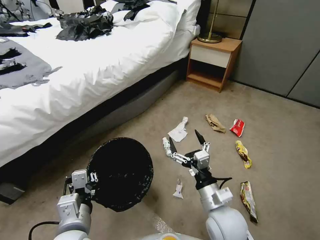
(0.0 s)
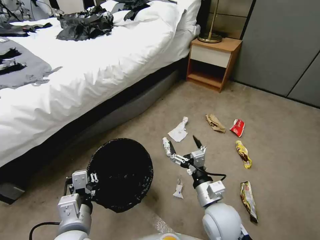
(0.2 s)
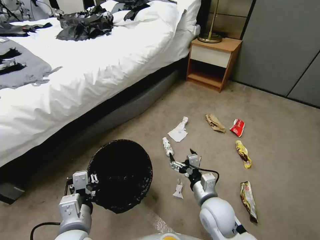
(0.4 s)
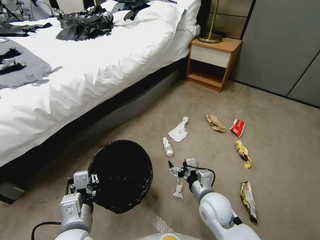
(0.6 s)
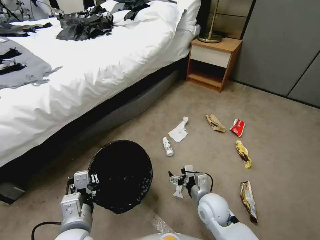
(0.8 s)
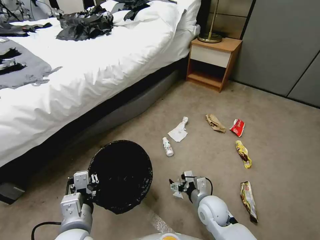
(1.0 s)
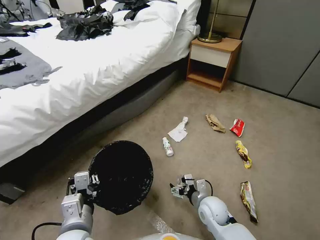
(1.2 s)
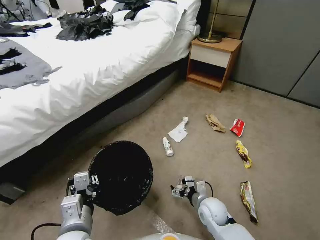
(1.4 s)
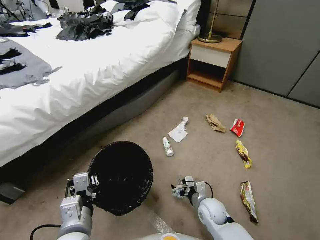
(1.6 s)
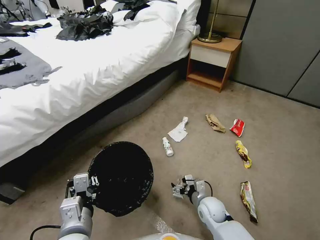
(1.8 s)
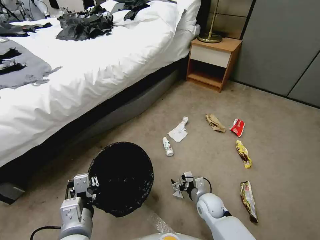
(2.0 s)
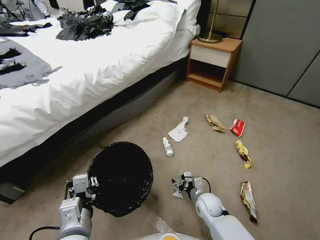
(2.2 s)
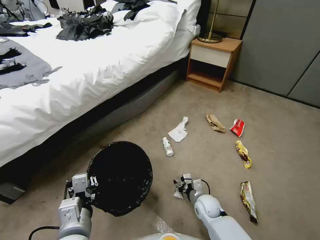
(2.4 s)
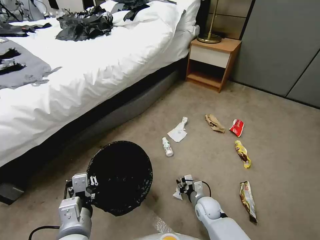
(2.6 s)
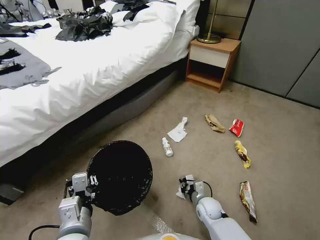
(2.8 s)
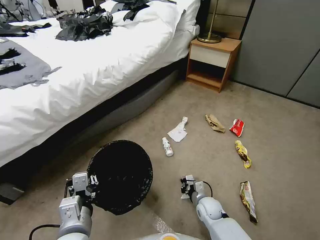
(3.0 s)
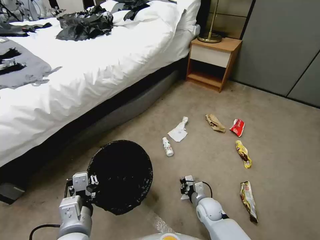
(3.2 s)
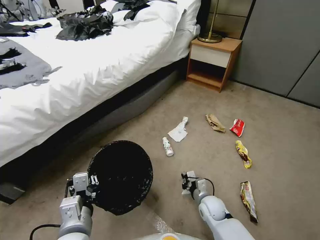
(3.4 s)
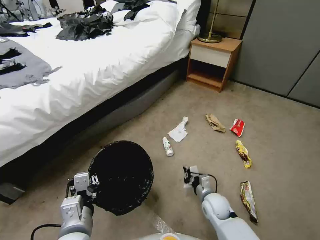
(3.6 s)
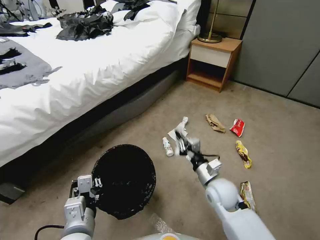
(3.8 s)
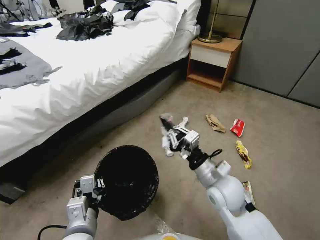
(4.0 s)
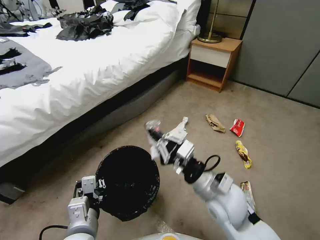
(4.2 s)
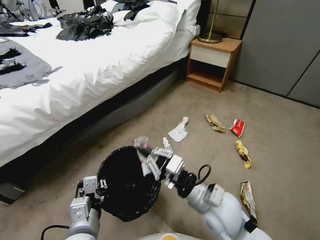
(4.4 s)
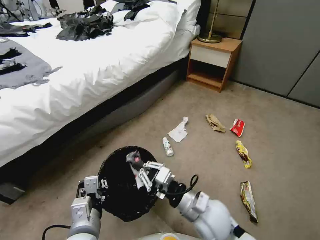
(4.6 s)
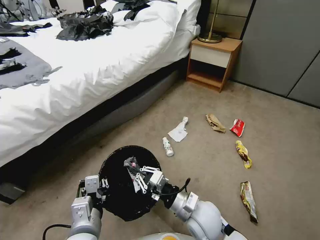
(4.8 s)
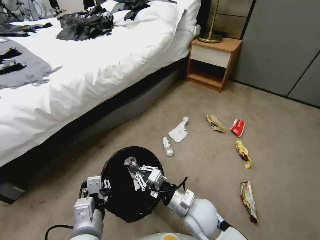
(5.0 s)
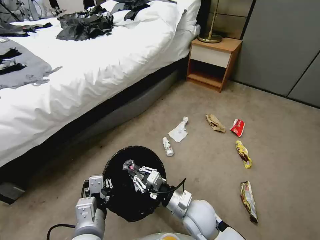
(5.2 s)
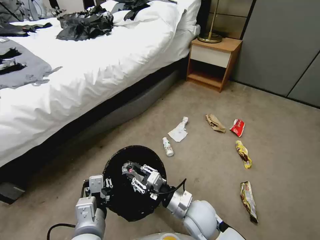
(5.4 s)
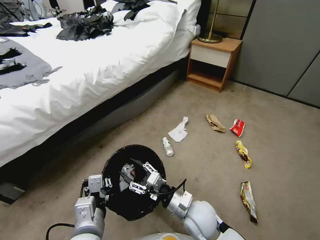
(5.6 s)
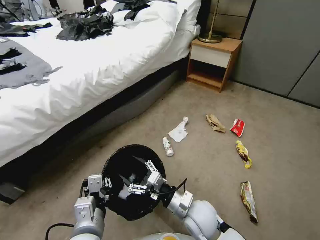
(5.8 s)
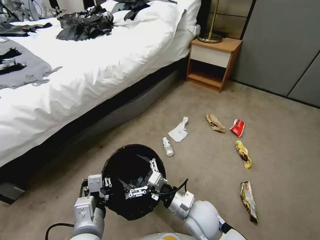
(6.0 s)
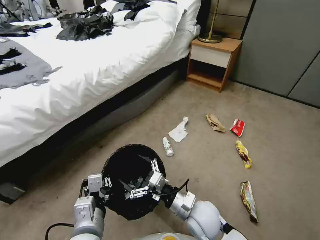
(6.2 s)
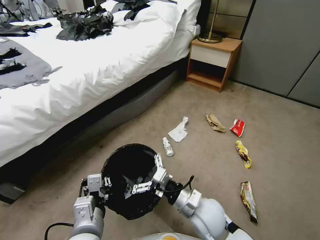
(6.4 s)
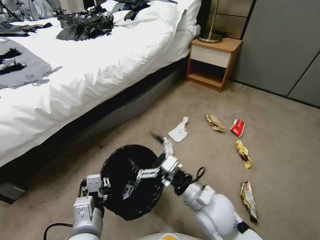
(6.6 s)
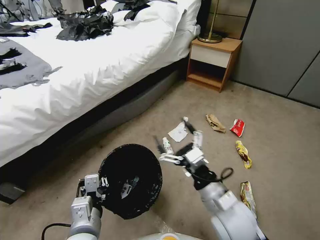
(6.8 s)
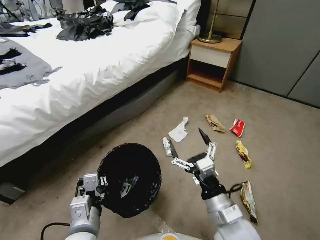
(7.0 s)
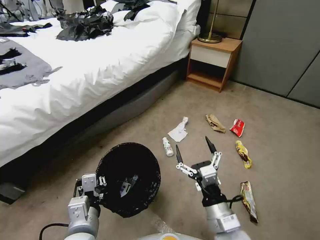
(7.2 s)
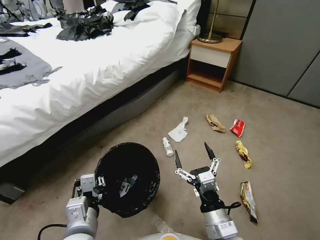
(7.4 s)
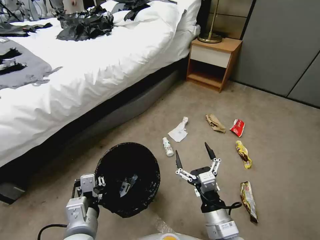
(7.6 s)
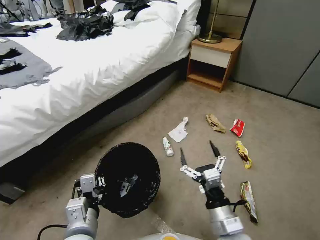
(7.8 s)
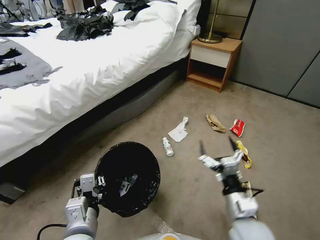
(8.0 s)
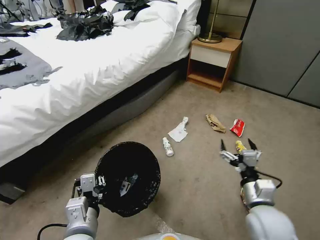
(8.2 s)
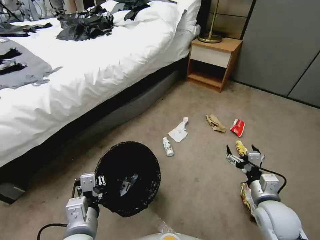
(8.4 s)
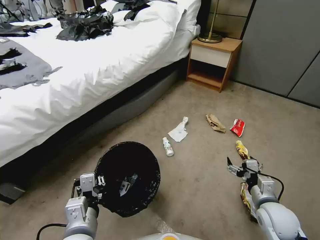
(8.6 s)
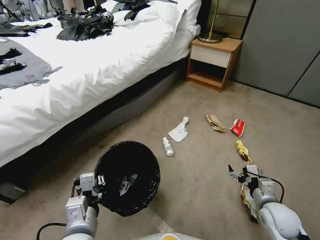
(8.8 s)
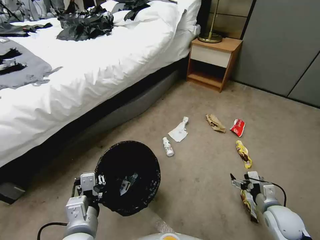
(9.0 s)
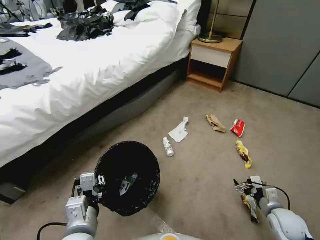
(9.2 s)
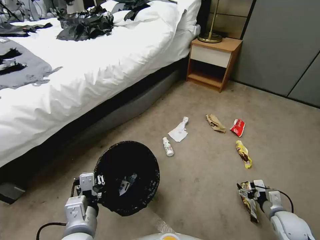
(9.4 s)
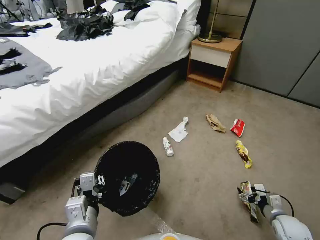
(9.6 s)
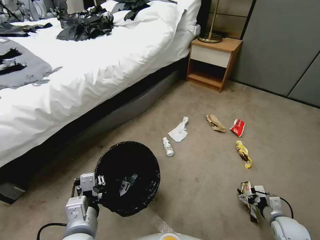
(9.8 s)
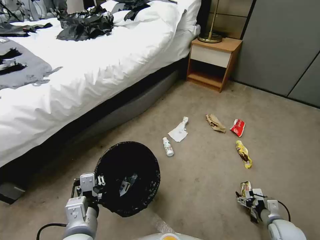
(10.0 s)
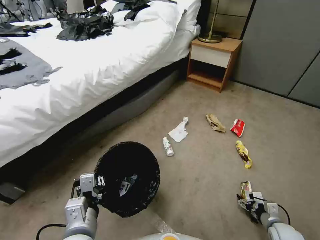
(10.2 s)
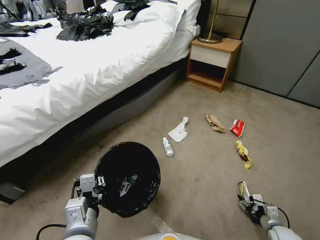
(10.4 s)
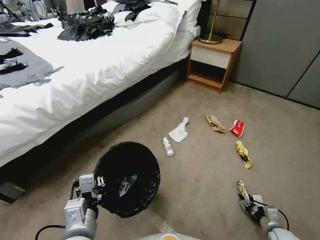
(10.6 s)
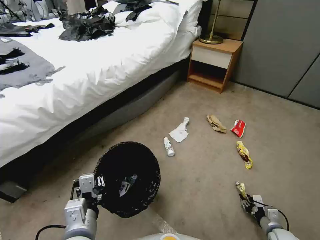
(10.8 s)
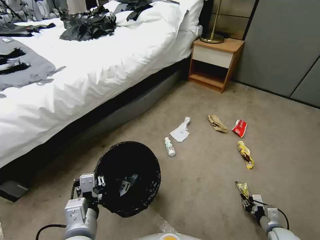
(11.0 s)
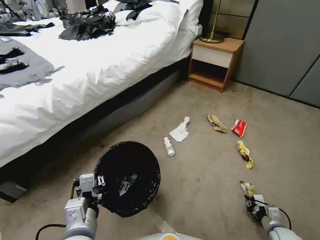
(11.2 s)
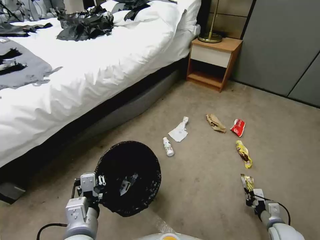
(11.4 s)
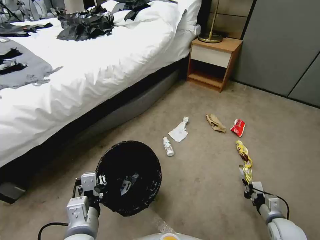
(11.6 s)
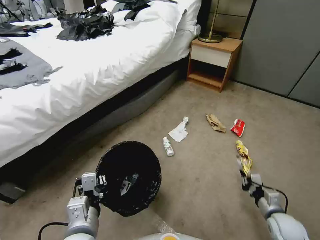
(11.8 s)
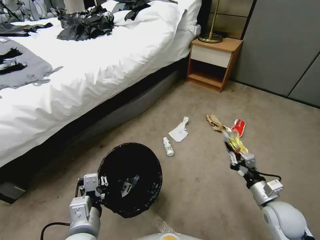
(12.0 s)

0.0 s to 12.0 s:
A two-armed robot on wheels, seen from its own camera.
Task of the whole recording: Pick up the trash bin, then pick up the garbage from the floor and place it into the trash bin.
0.0 to 1.6 s: The right gripper heads downward and forward, covering about 20 cm.
1.6 to 3.0 s: The right gripper travels downward by approximately 5 cm, and closes its fingers.
3.0 to 4.4 s: The right gripper travels upward by about 25 cm.
4.4 to 6.0 s: The right gripper heads downward, covering about 10 cm, and opens up.
6.0 to 7.6 s: The right gripper is displaced backward by roughly 10 cm.
7.6 to 9.0 s: The right gripper is displaced to the right and downward by about 25 cm.
9.0 to 10.4 s: The right gripper travels downward and to the right by some 15 cm, and closes up.
10.4 to 12.0 s: The right gripper heads upward and to the left, covering roughly 20 cm, and closes.

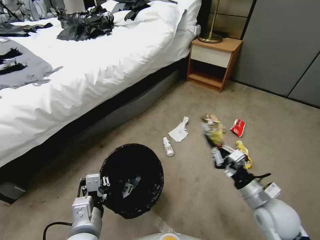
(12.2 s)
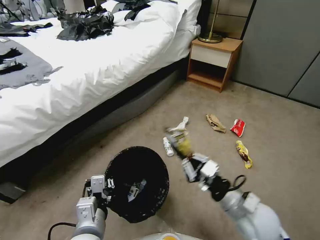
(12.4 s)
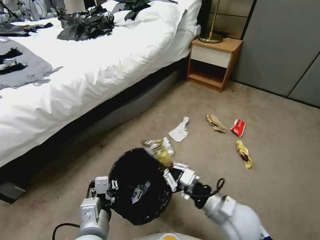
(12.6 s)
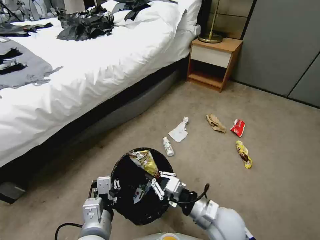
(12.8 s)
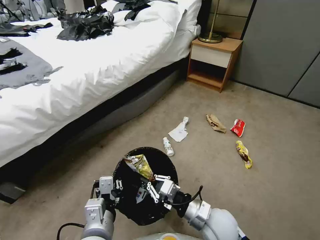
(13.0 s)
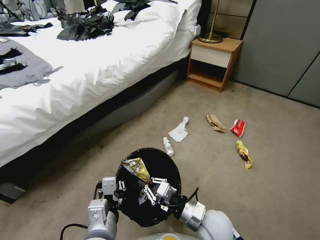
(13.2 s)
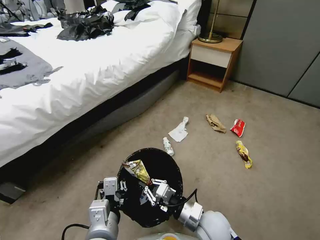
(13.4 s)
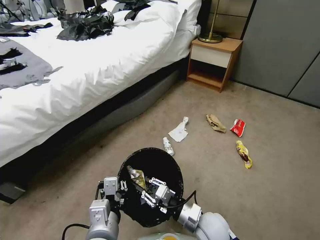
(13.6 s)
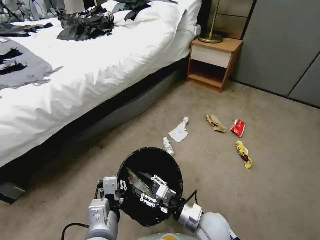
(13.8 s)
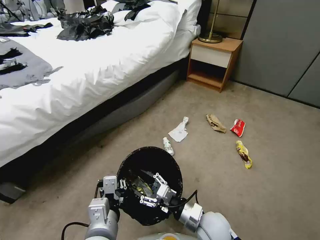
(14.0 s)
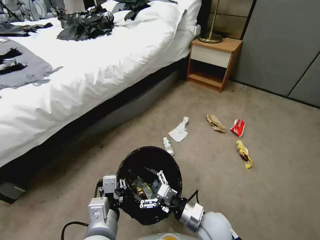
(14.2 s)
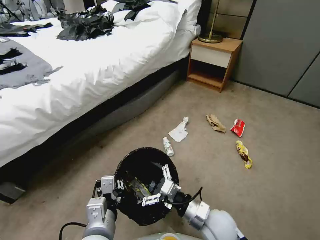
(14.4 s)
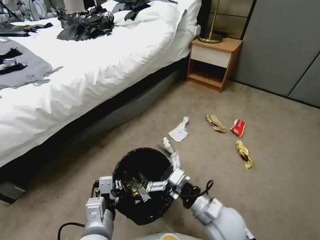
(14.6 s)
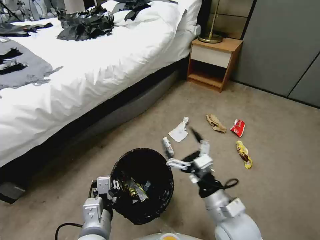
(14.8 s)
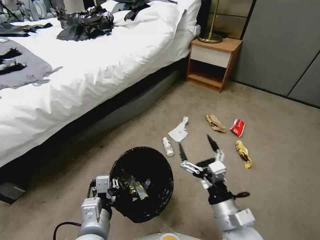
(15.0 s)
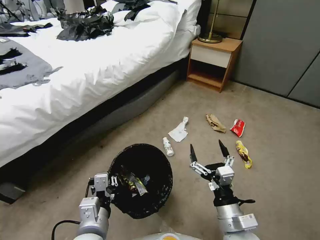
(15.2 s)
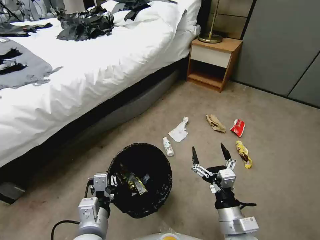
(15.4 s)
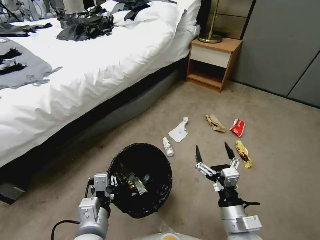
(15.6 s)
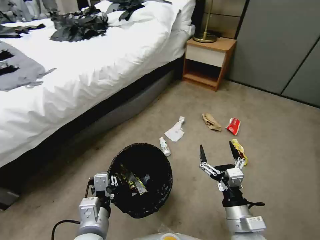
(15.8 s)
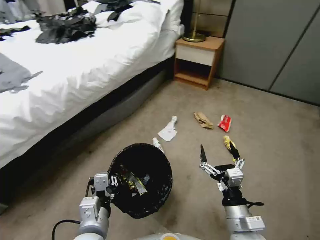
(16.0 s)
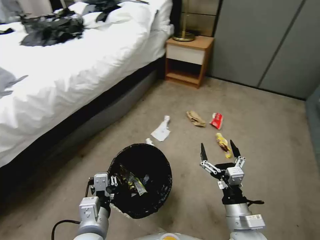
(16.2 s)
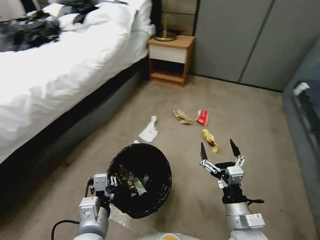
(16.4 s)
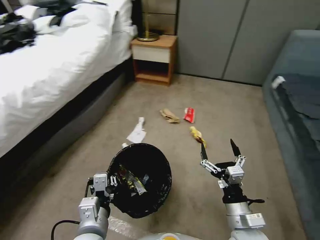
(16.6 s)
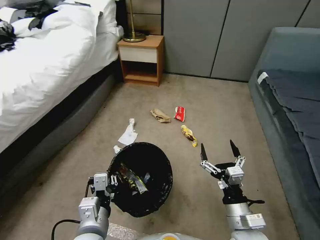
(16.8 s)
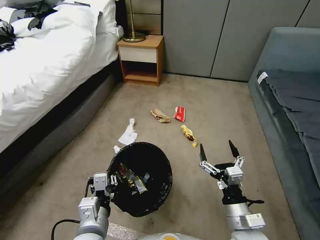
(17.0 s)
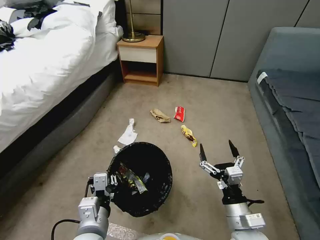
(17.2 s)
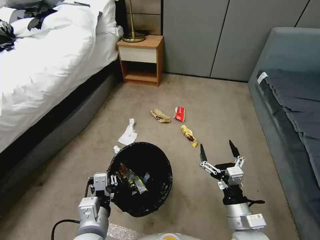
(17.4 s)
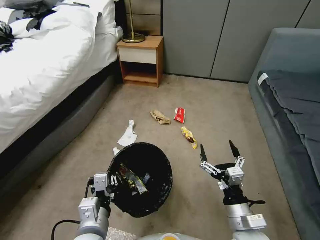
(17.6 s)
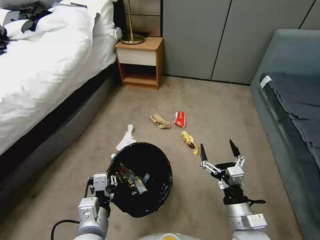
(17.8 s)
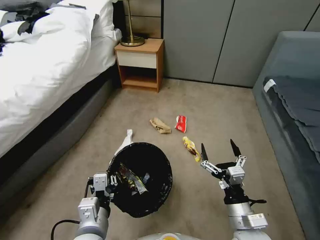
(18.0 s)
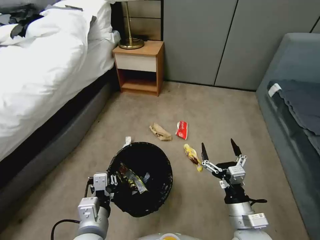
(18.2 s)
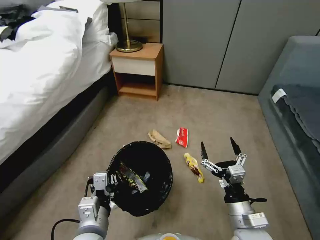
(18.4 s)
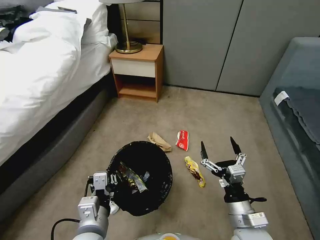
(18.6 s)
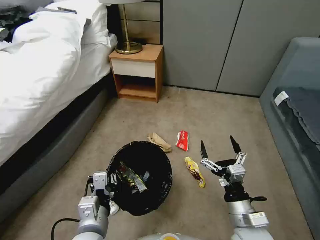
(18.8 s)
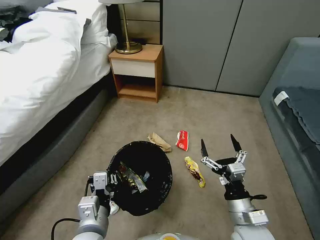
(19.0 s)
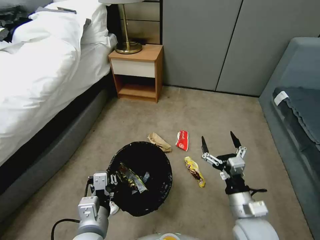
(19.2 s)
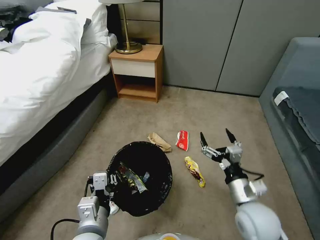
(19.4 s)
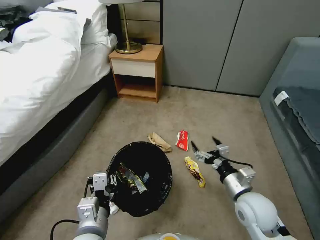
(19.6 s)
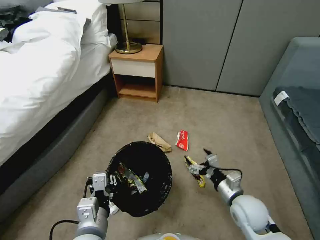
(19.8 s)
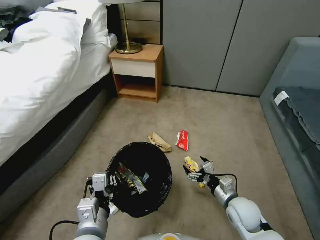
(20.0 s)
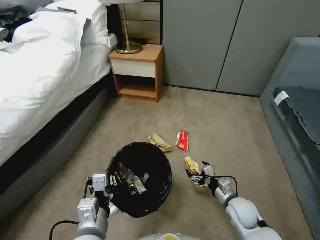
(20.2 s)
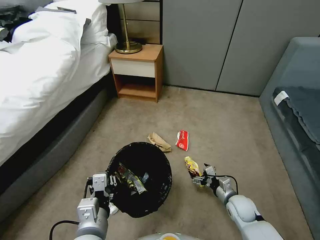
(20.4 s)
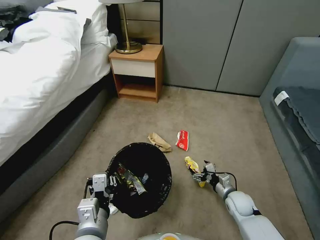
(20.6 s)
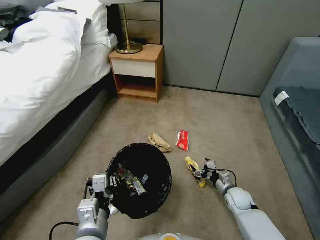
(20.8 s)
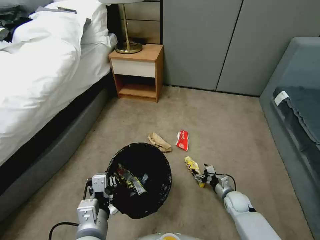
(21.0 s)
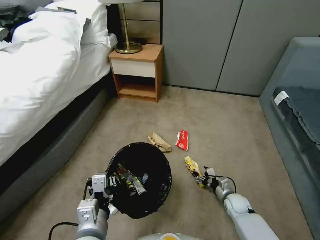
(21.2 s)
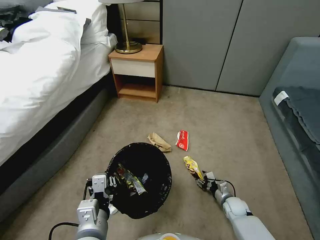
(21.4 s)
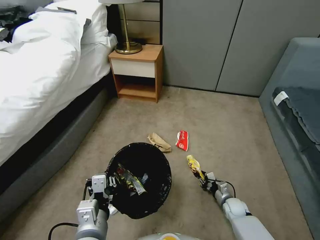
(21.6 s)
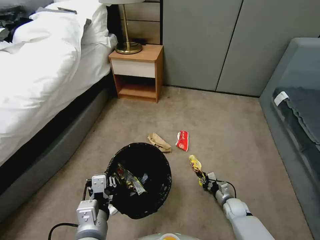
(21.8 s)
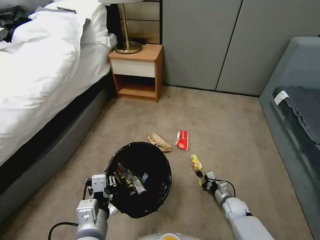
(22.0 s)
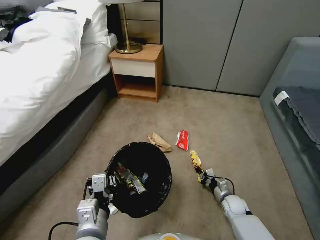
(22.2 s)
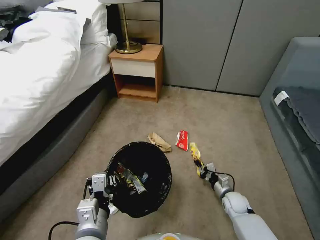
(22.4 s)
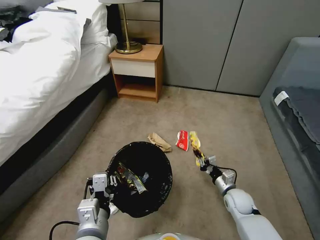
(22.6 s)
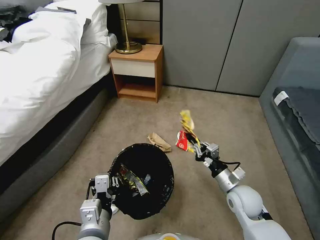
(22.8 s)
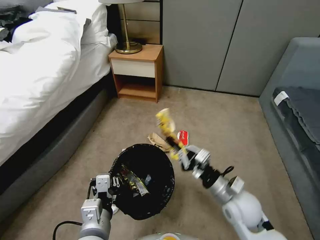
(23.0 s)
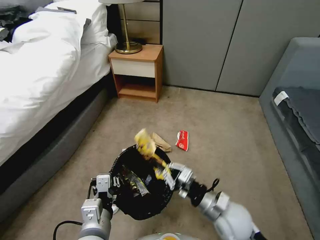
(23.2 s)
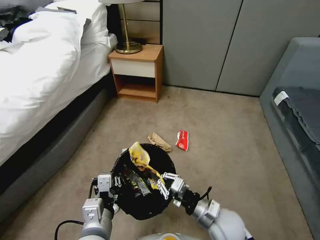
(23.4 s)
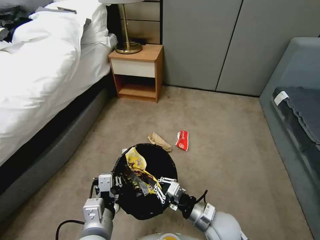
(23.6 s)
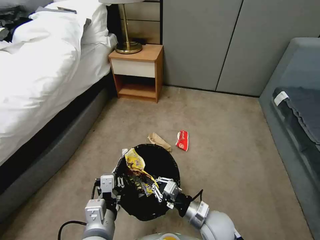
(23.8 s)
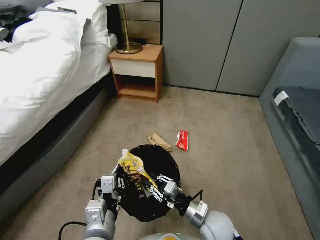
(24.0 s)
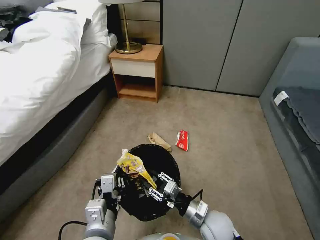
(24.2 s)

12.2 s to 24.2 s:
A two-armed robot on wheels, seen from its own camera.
Task of the whole recording: Pick up the trash bin, then pick up the garbage from the floor and place it into the trash bin.
12.2 to 13.8 s: The right gripper moves to the left and downward, about 15 cm, and opens.
13.8 to 15.2 s: The right gripper shifts some 5 cm upward, and opens its fingers.
18.2 to 19.8 s: The right gripper travels forward by some 10 cm.
19.8 to 21.2 s: The right gripper is displaced downward by approximately 20 cm.
21.2 to 22.6 s: The right gripper moves upward, some 10 cm, and closes up.
22.6 to 24.2 s: The right gripper is displaced to the left, backward and upward by approximately 15 cm, and opens.
